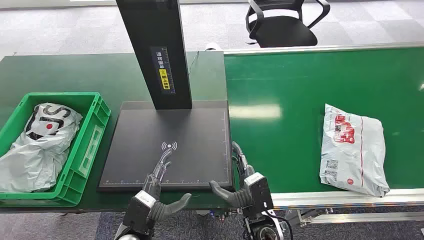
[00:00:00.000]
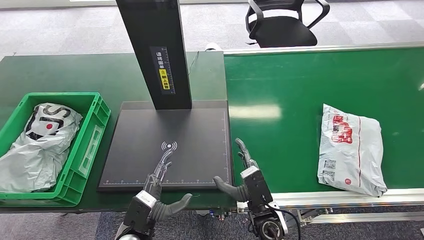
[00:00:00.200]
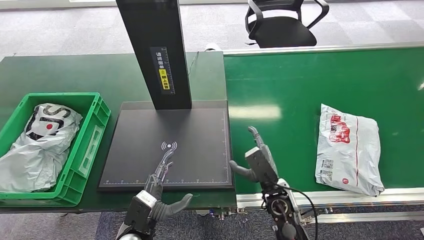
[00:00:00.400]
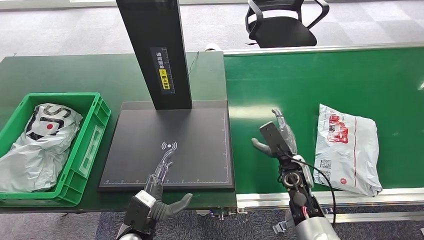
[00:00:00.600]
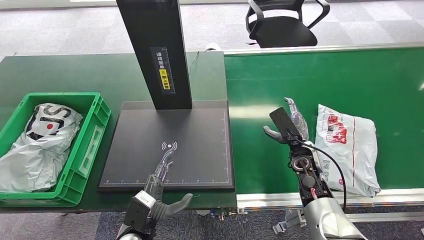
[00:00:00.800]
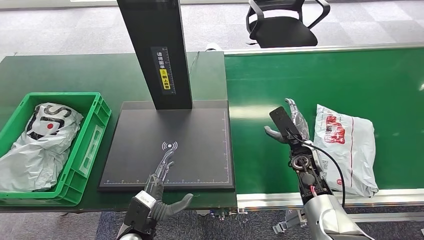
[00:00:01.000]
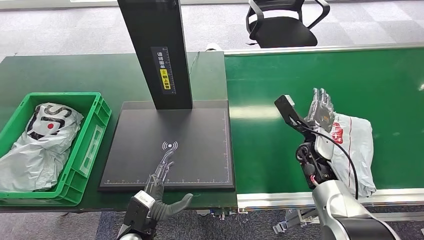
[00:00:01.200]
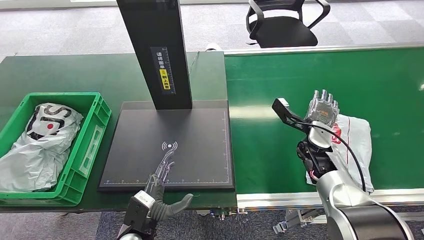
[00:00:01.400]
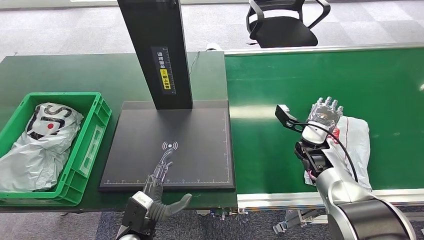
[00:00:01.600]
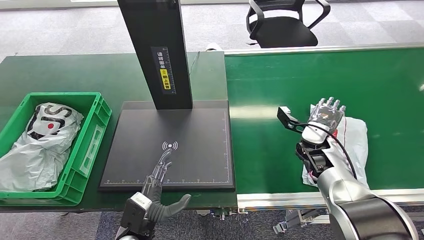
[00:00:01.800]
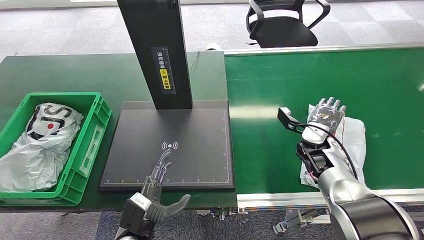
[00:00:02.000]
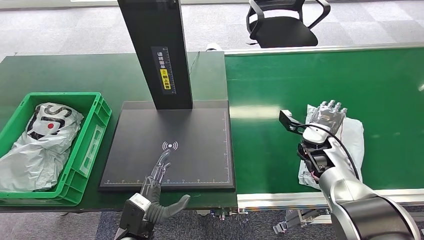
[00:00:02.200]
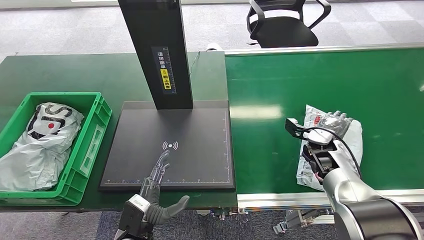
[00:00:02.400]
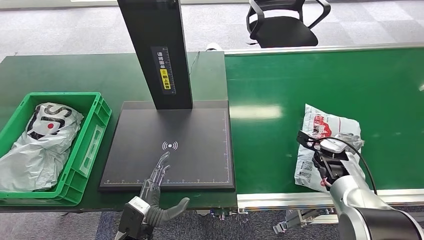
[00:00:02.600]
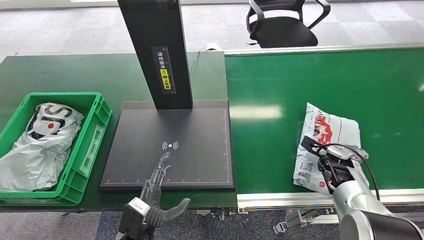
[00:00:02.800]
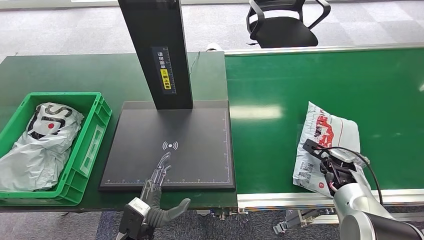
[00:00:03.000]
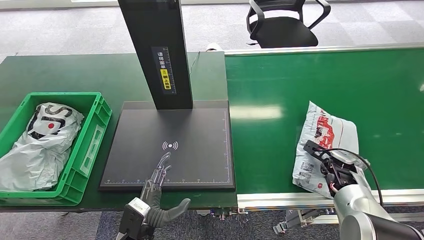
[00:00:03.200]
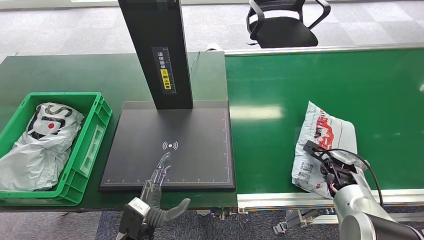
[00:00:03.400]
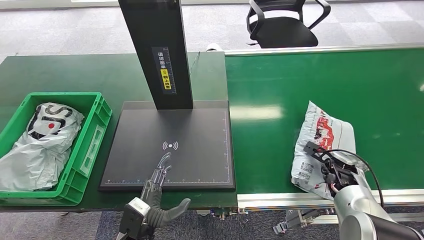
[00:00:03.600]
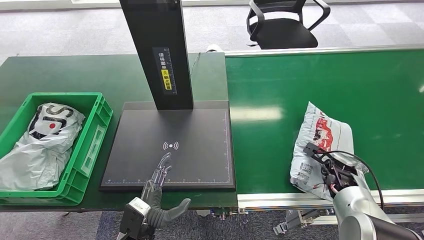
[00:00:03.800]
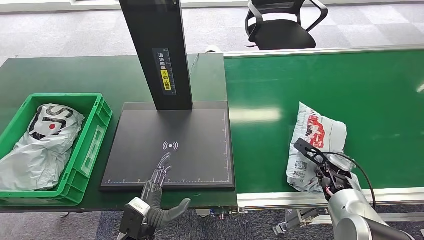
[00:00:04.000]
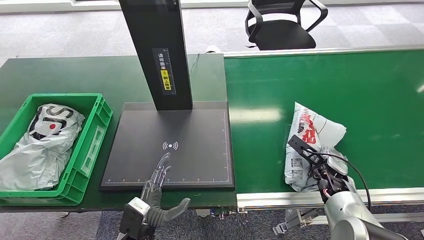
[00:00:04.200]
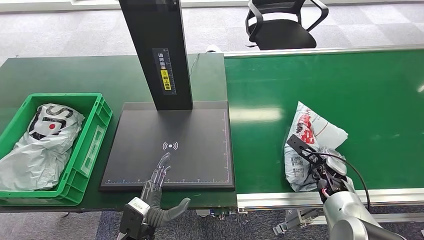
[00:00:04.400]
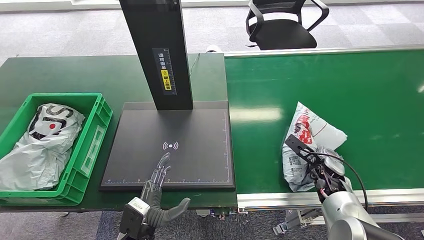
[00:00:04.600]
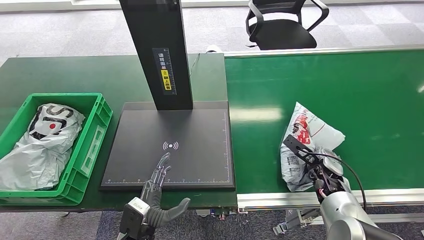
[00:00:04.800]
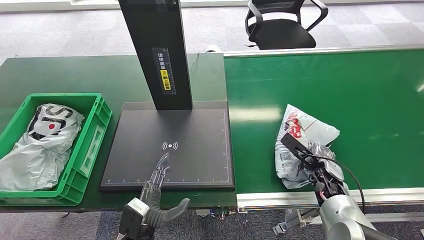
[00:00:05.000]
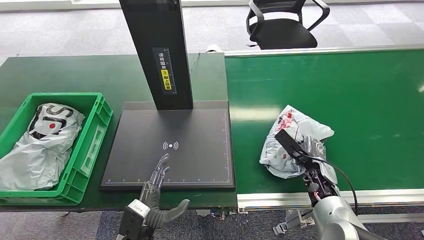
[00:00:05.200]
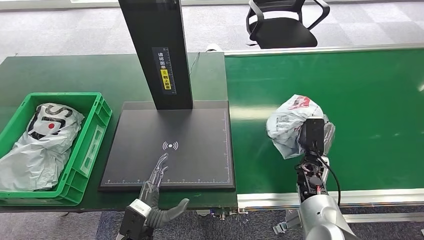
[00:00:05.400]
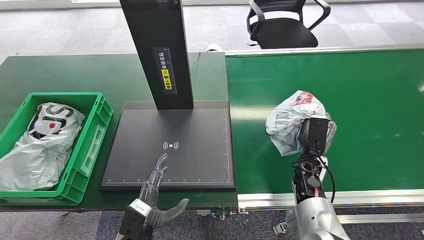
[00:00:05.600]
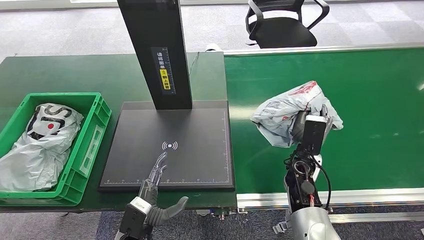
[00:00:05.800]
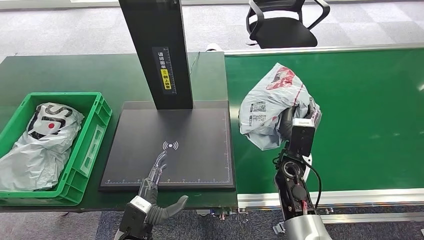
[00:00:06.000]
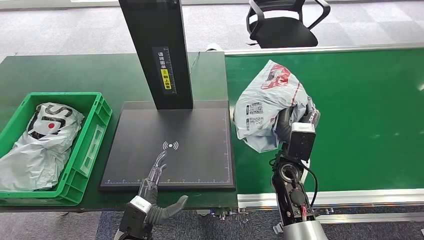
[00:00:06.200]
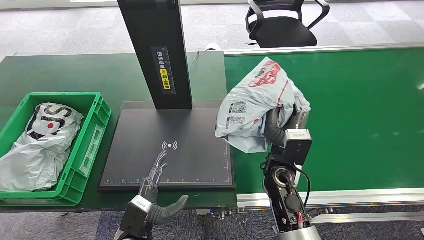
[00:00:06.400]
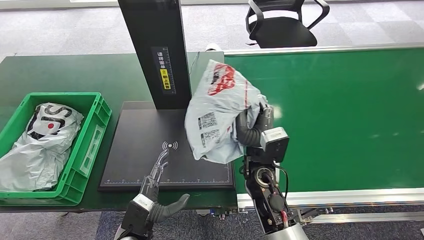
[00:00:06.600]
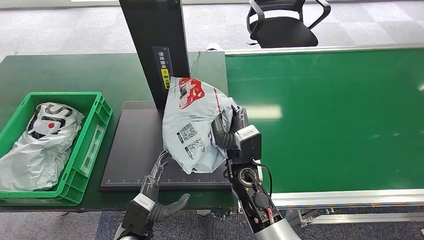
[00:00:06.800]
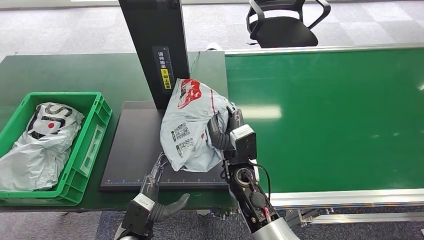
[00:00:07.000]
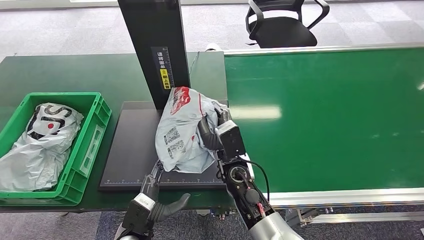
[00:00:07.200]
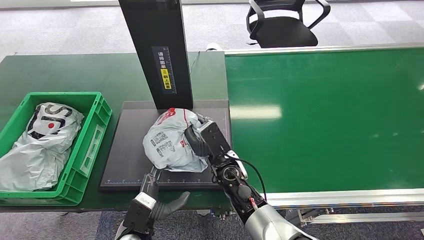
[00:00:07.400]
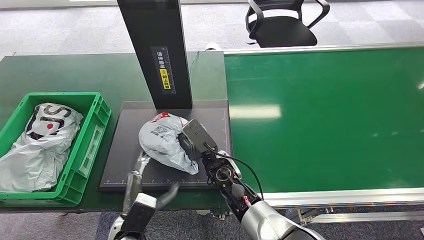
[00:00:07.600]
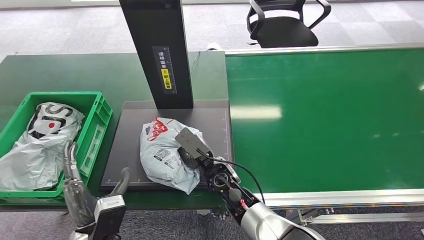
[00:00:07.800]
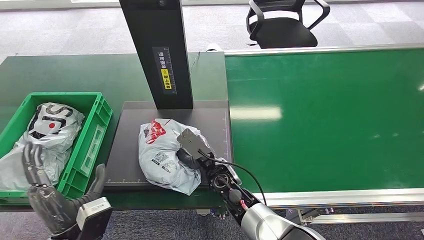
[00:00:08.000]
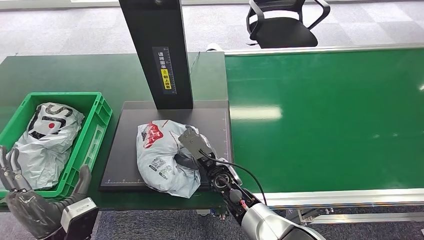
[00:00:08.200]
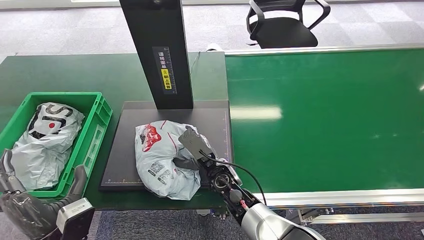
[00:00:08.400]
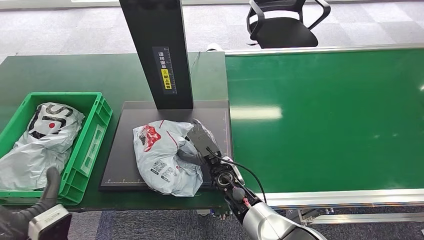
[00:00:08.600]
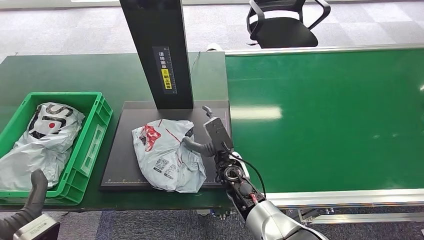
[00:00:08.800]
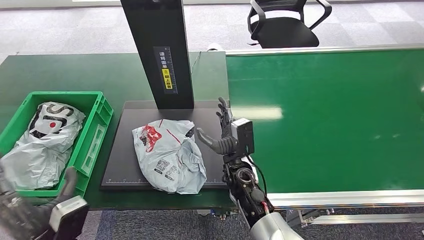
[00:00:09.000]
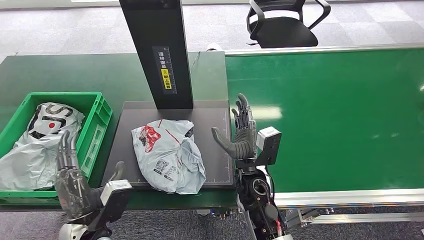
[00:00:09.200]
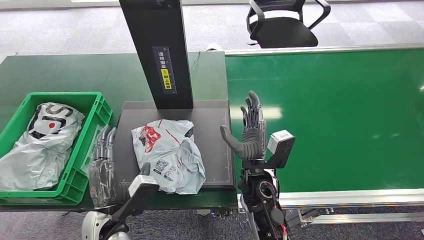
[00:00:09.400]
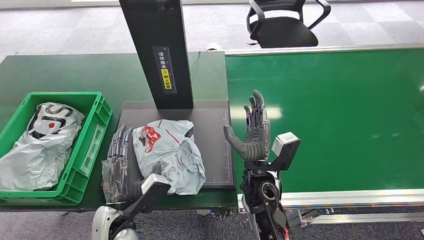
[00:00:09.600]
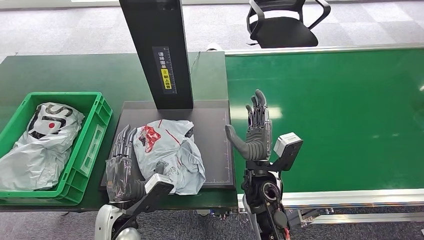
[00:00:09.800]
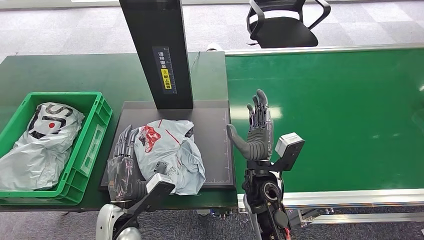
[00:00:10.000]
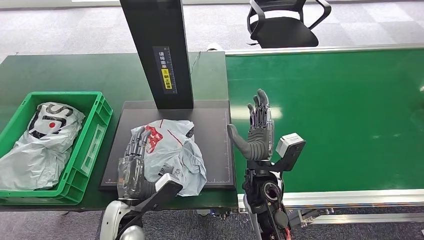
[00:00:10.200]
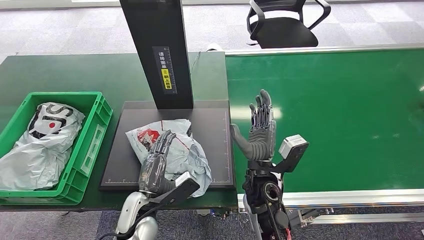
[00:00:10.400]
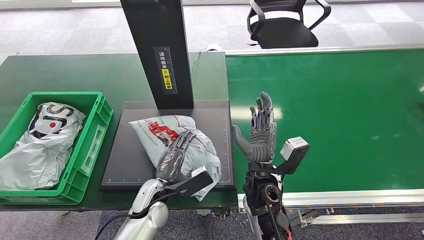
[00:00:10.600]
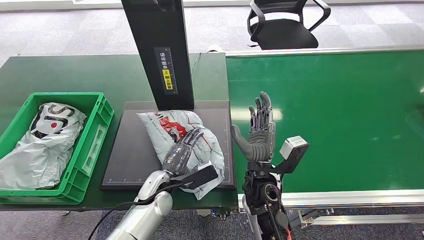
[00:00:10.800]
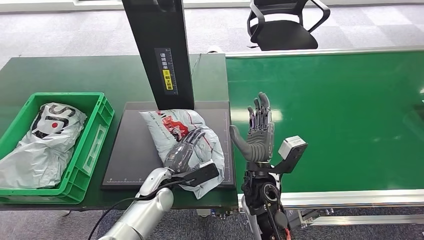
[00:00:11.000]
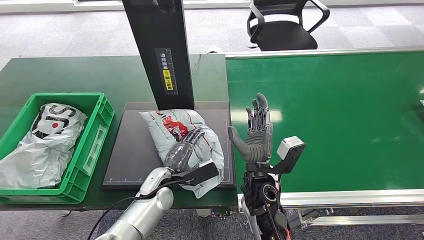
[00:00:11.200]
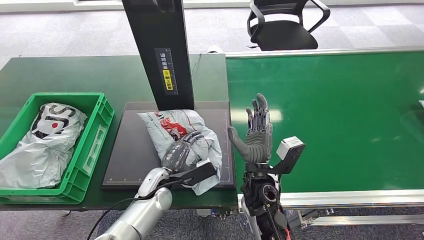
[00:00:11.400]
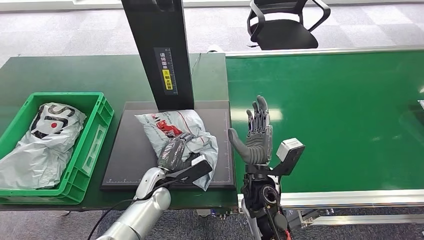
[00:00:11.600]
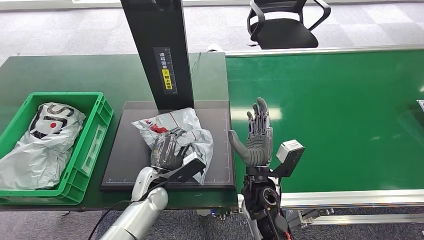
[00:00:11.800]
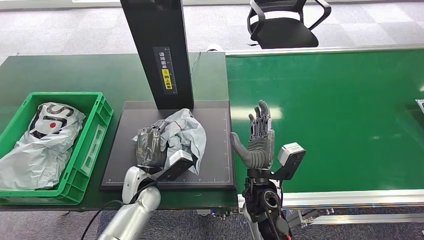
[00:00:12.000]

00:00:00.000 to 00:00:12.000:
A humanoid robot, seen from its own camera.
Step, 00:00:00.000 to 00:00:06.000: Pick up the package from the conveyor belt.
Step, 00:00:06.200 to 00:00:09.400: Place the package onto the inbound machine.
00:00:01.600 to 00:00:03.000: The right hand goes approximately 10 cm to the right and downward.
00:00:04.400 to 00:00:06.000: The right hand goes roughly 15 cm to the left and upward.
00:00:09.000 to 00:00:10.400: The left hand goes roughly 15 cm to the right, forward and downward; the right hand shifts by some 5 cm.
00:00:10.400 to 00:00:12.000: The left hand shifts roughly 5 cm forward.

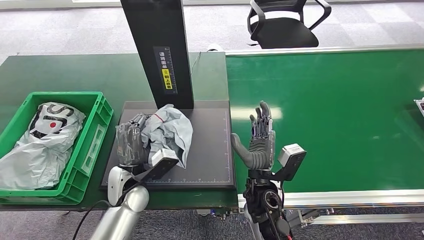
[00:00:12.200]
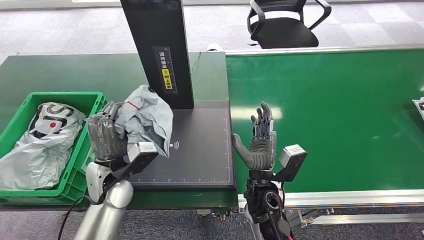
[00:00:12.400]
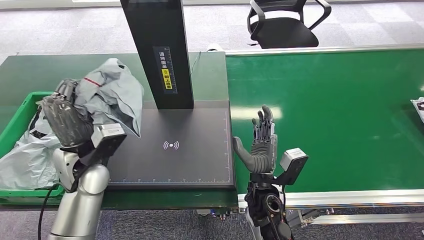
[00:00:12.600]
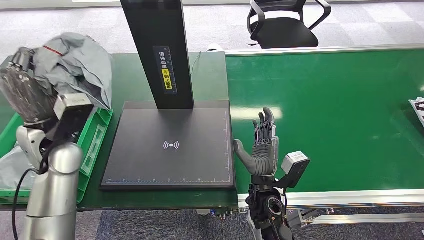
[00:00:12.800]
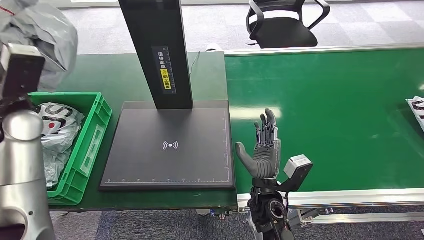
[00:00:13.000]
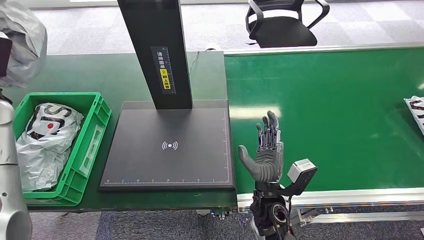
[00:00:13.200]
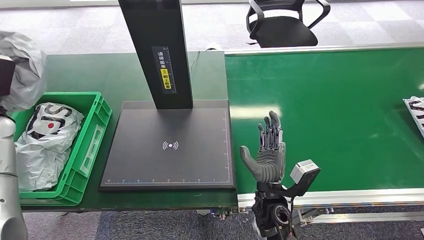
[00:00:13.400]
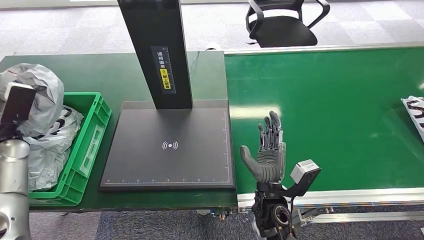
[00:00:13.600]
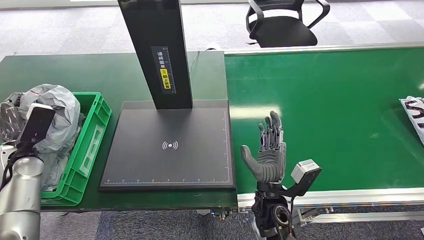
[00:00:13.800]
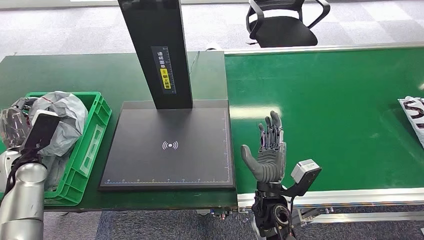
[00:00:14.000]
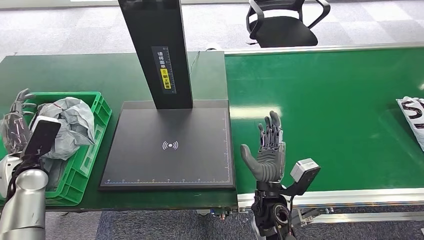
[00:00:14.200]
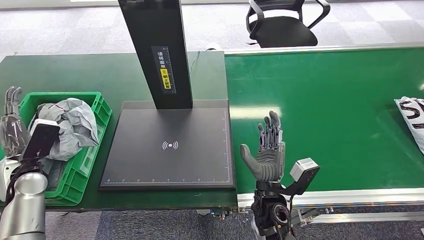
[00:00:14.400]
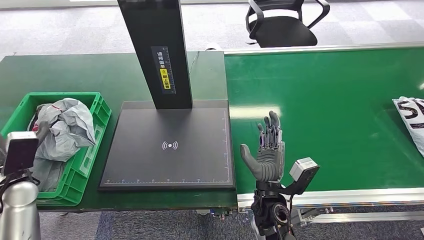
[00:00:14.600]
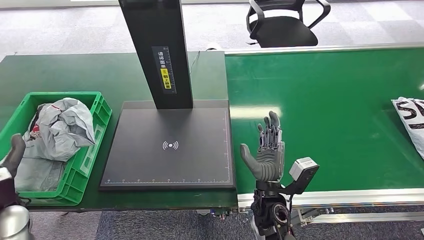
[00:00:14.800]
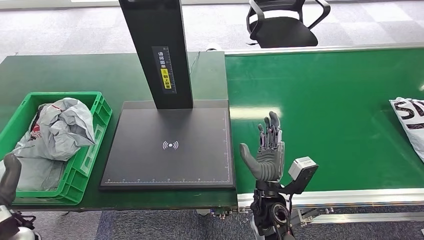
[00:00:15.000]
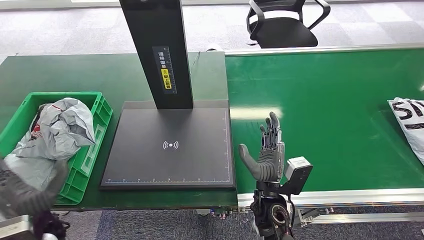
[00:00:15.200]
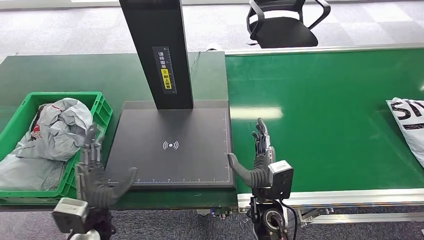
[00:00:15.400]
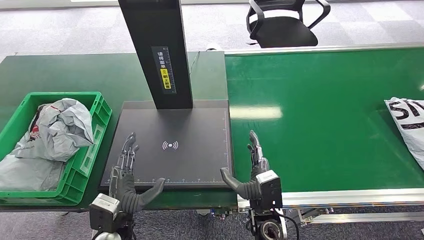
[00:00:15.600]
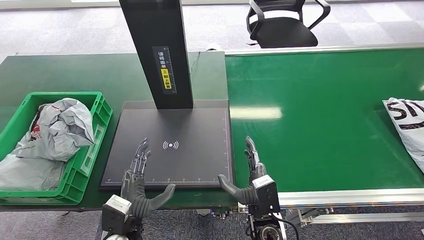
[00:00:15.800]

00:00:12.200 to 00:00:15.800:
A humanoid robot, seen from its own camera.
Step, 00:00:13.000 to 00:00:15.800: Place the package into the parcel locker.
00:00:14.000 to 00:00:15.800: The left hand goes some 30 cm to the right and backward. Meanwhile the right hand moves about 5 cm.
